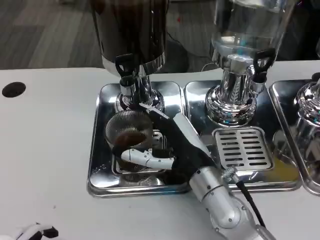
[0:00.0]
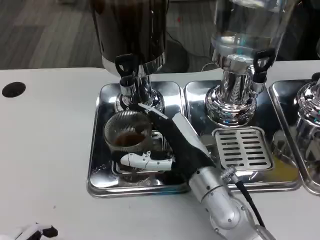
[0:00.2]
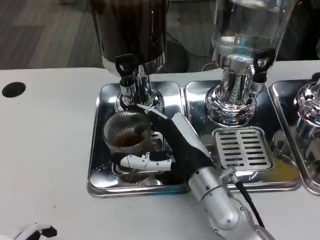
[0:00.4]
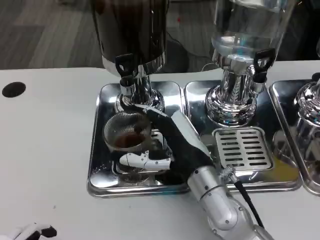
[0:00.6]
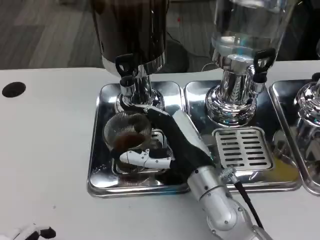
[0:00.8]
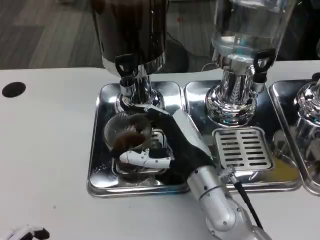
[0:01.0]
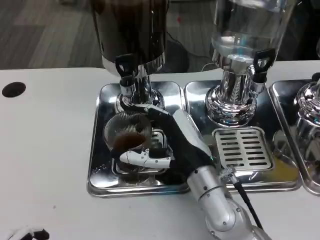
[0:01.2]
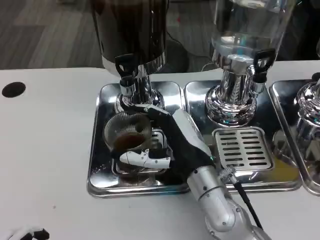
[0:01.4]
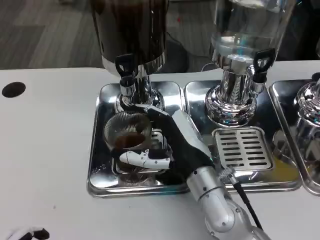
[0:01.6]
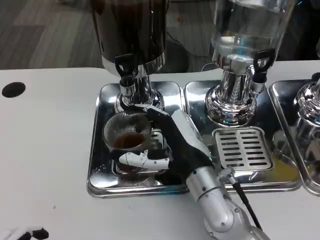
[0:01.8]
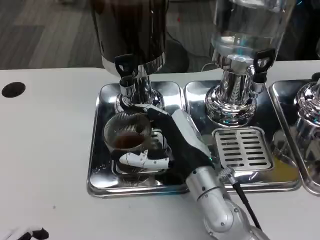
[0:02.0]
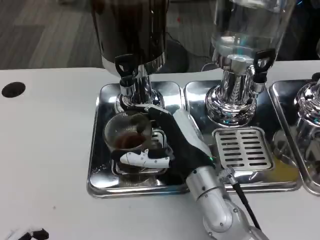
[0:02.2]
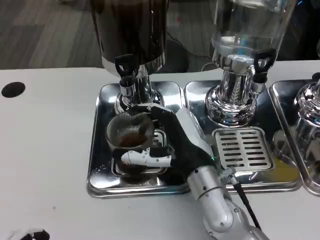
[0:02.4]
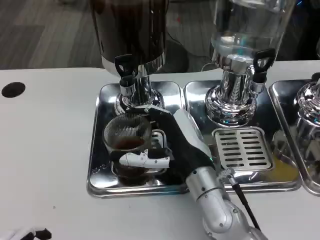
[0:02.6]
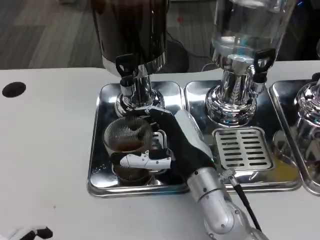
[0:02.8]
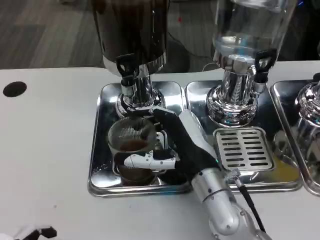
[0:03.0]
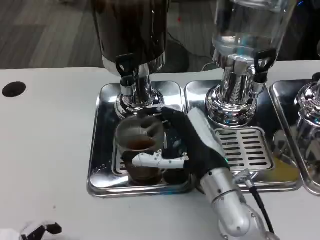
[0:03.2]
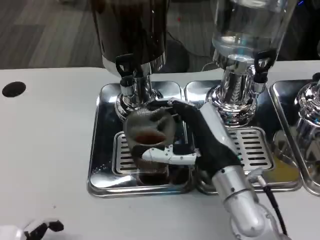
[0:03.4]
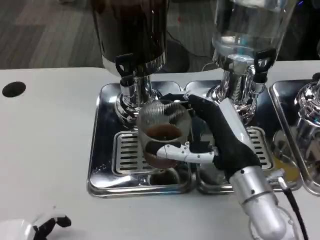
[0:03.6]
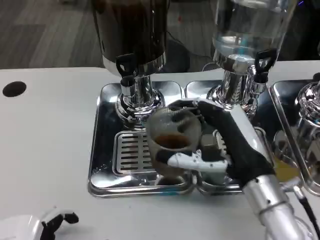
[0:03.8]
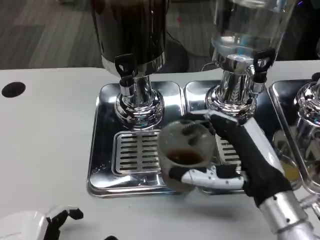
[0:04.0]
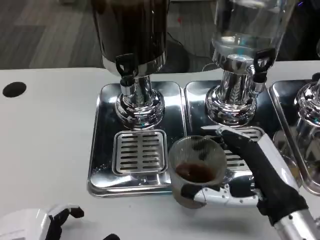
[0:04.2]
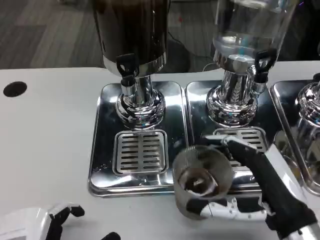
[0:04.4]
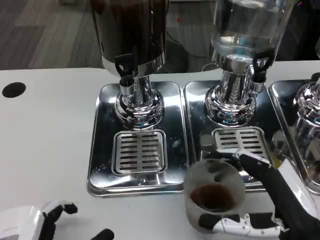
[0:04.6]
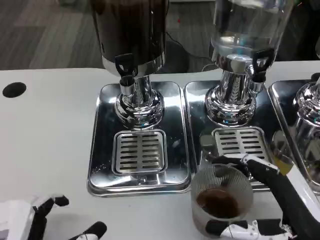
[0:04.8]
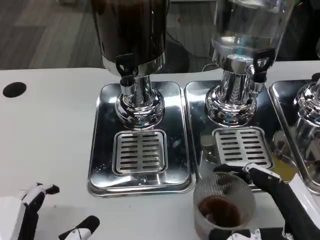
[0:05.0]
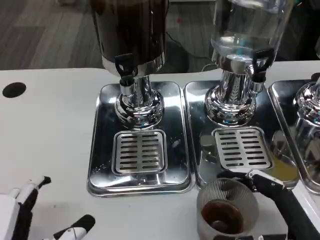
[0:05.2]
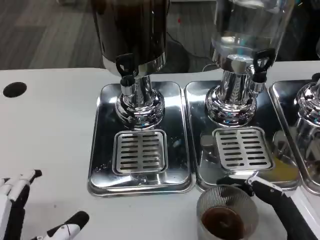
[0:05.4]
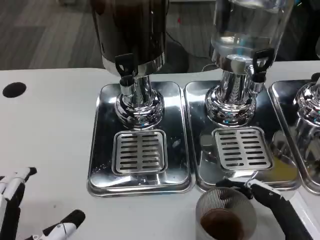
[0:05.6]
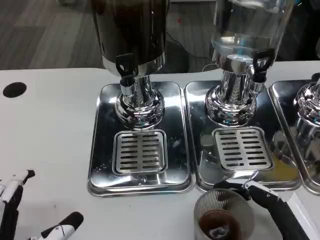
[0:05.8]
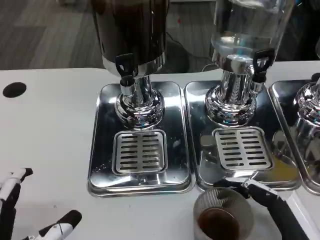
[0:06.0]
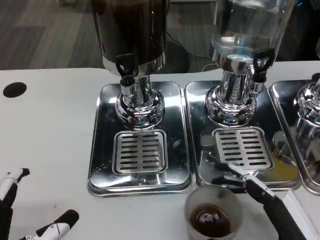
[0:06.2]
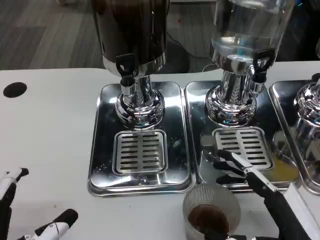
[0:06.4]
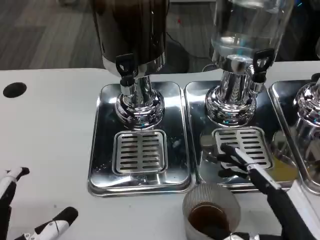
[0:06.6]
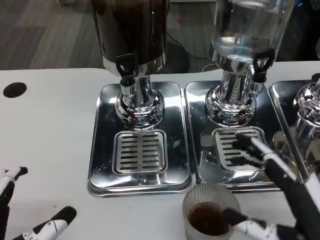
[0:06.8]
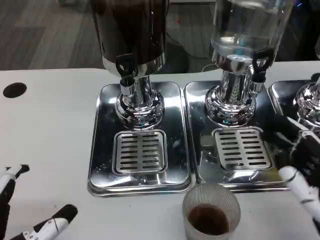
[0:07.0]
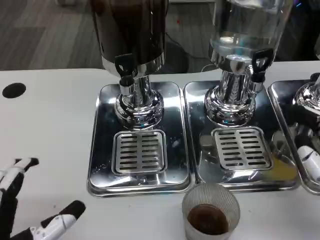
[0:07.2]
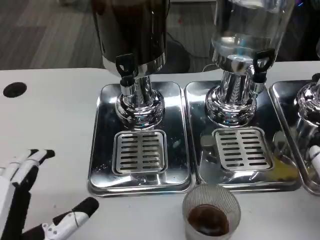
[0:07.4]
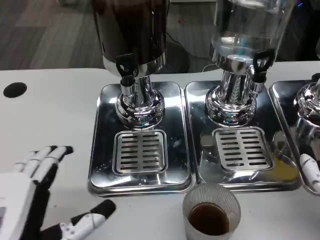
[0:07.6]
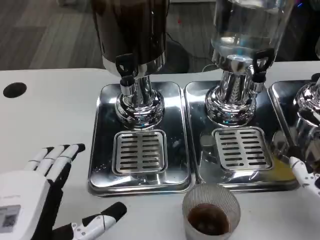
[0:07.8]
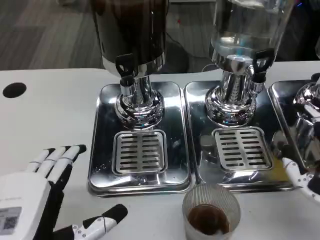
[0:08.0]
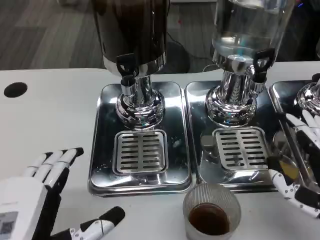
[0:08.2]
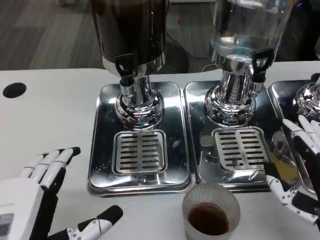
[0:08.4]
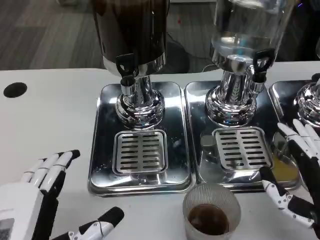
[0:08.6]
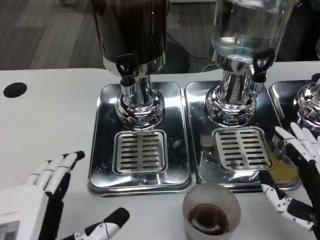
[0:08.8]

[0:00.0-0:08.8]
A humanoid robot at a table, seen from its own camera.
Task of the whole recording: Grasp the cup under the faucet to collect the drink, then remove the cup.
0:00.0 to 0:01.4: The hands stay close to where they were, moving slightly.
0:01.4 to 0:03.0: The two hands keep their place.
0:03.0 to 0:04.4: The right hand is displaced to the right and backward by some 15 cm.
0:04.4 to 0:05.8: The right hand moves some 5 cm.
0:05.8 to 0:07.4: The right hand travels upward by roughly 5 cm.

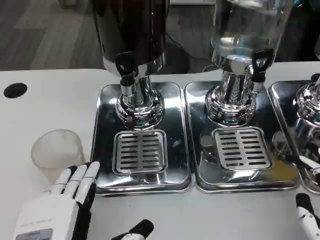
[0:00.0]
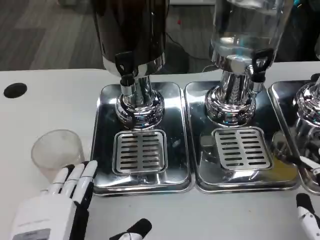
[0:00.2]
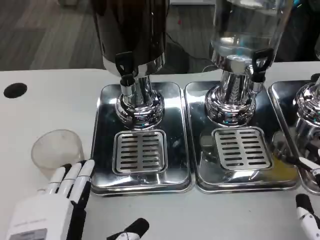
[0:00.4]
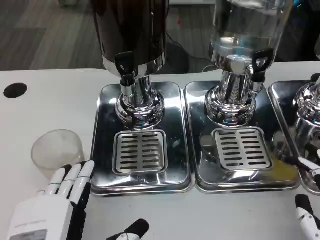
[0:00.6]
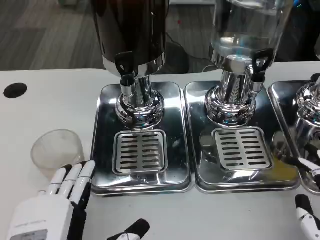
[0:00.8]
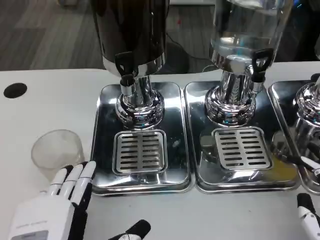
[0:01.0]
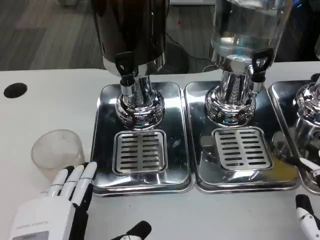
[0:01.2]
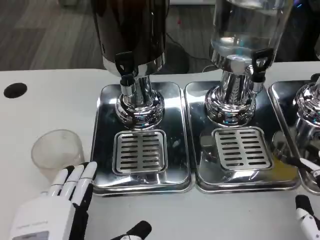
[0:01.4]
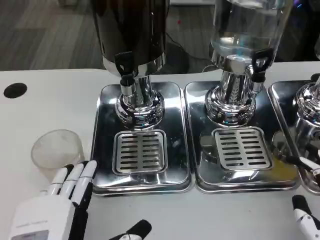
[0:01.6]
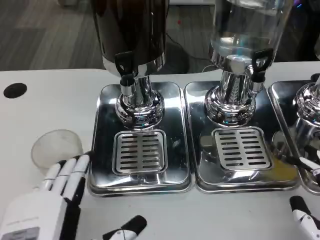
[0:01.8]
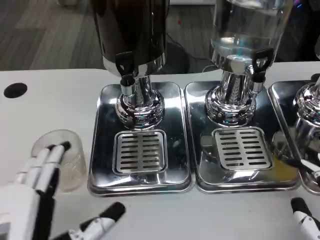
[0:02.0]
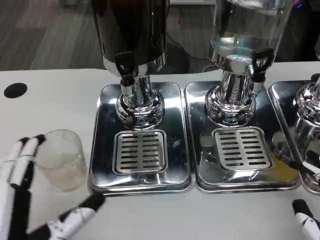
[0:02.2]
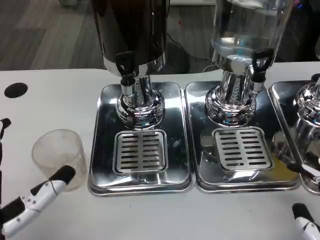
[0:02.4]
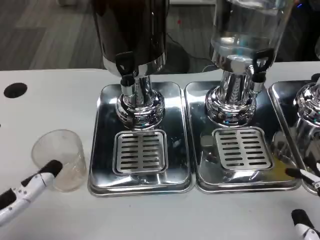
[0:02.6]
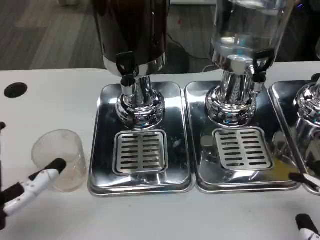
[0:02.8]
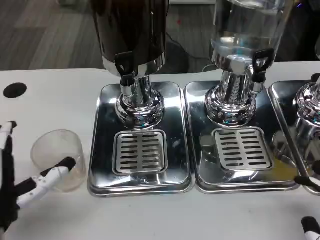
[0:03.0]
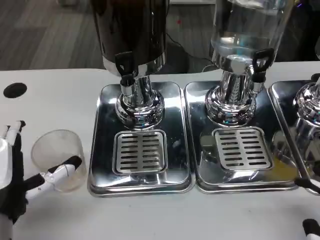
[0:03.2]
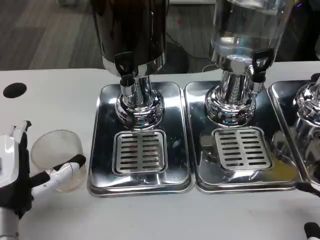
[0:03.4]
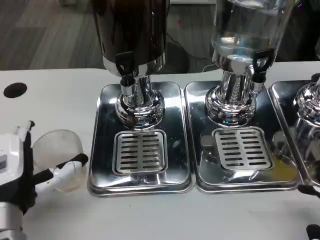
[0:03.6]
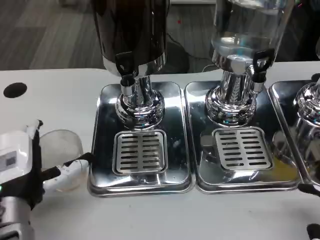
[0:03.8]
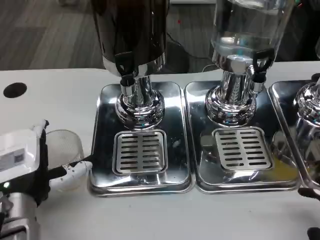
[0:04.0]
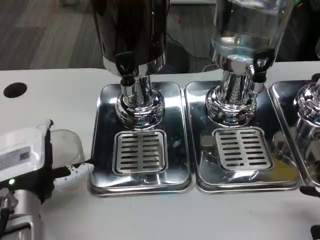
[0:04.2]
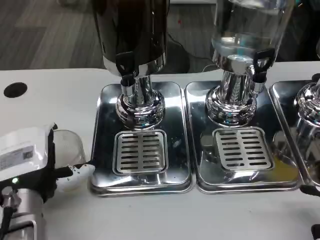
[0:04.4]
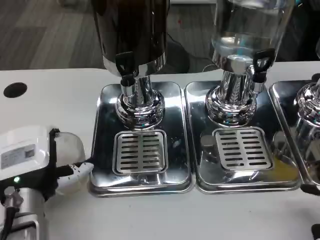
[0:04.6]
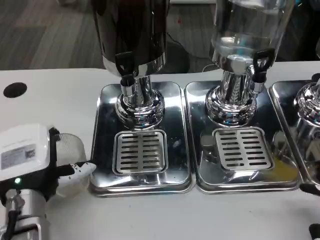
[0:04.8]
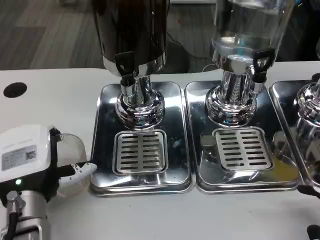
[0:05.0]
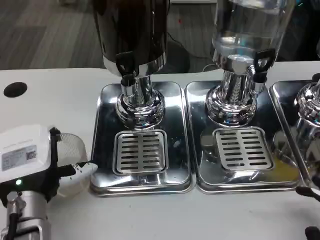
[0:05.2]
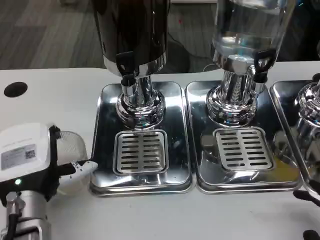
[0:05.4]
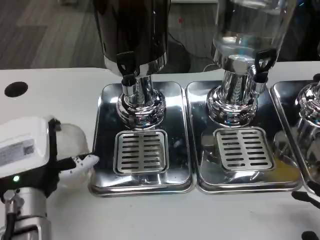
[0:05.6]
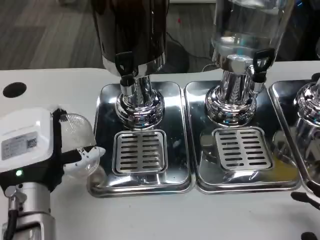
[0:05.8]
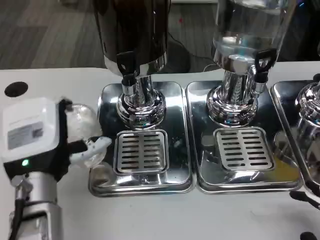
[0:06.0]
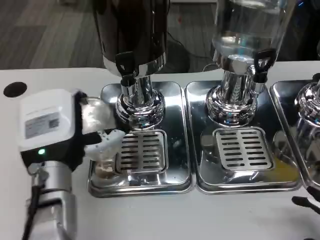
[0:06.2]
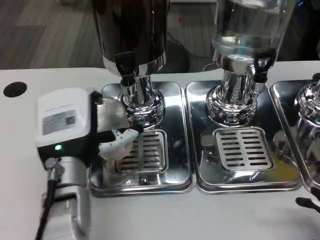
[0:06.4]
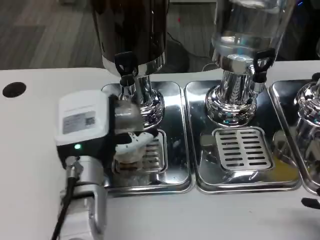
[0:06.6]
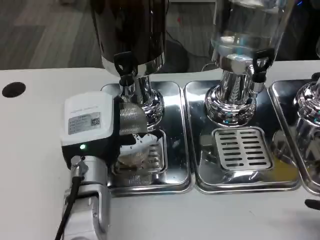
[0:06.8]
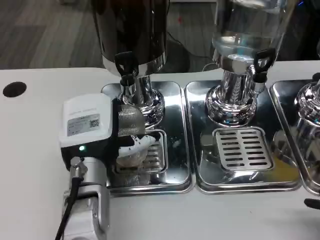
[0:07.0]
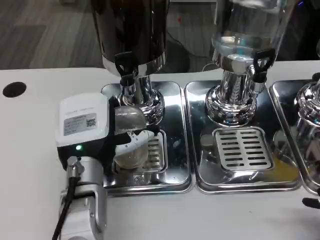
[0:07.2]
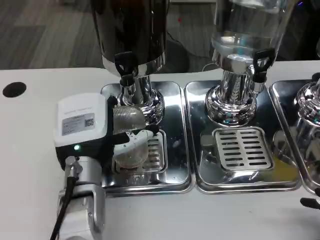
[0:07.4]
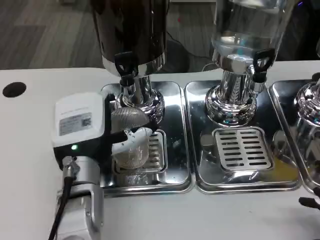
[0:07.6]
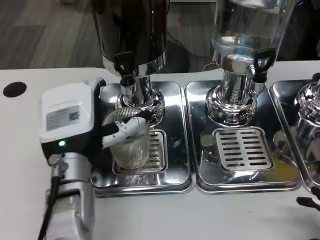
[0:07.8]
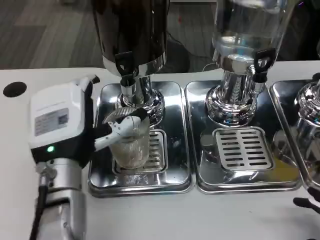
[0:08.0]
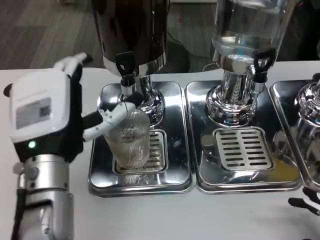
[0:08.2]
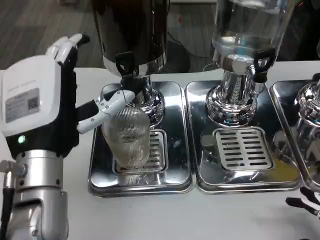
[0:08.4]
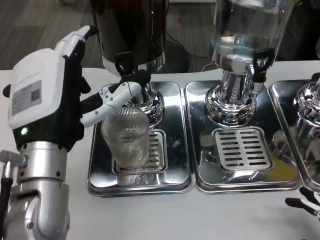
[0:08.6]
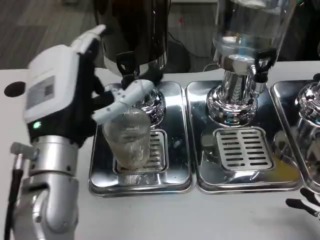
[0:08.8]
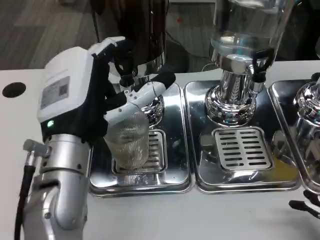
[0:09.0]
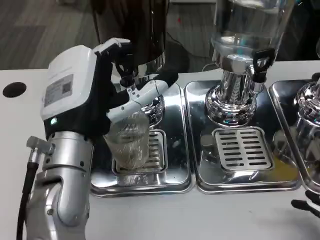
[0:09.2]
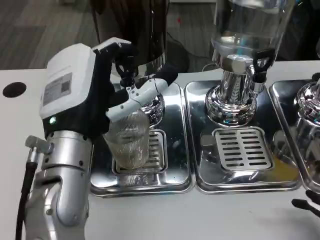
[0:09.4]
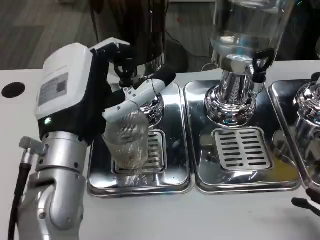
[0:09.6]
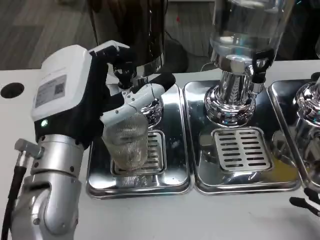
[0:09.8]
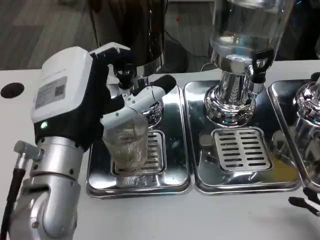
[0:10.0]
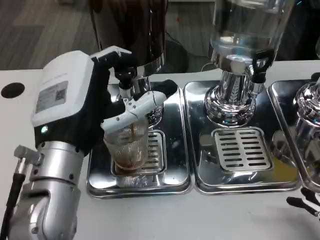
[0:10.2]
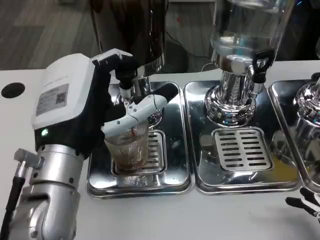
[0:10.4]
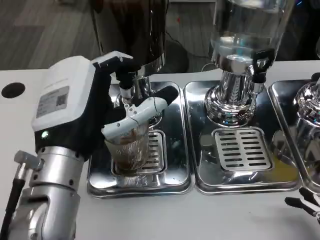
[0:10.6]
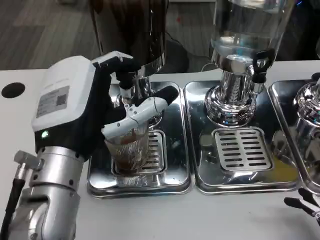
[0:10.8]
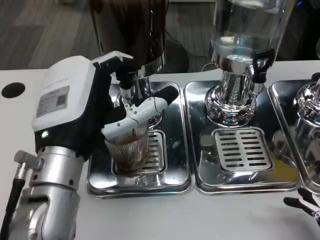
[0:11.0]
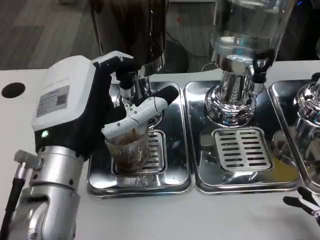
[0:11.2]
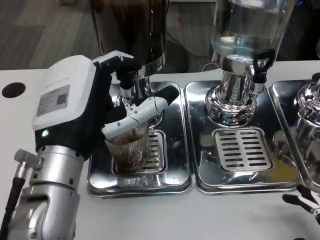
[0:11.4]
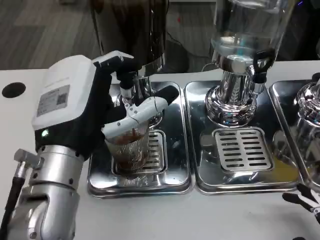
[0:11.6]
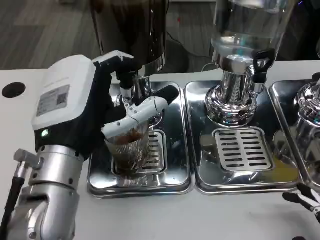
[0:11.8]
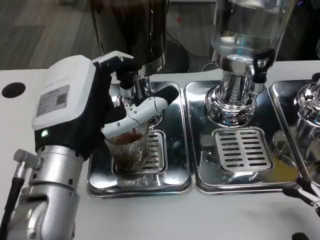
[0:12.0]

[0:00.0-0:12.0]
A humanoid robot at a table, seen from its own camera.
Task of the whole recording: Grasp the cup under the faucet to collect the drink, then remove the cup.
0:00.0 to 0:01.6: Neither hand changes place.
0:01.6 to 0:03.0: The left hand moves forward and to the left, some 10 cm.
0:03.0 to 0:04.4: The left hand heads forward, covering roughly 5 cm.
0:04.4 to 0:06.0: The hands move only a little.
0:06.0 to 0:07.6: The left hand changes place by about 5 cm.
0:07.6 to 0:09.0: The left hand is displaced upward by roughly 5 cm.
0:10.4 to 0:12.0: The hands make only small movements.

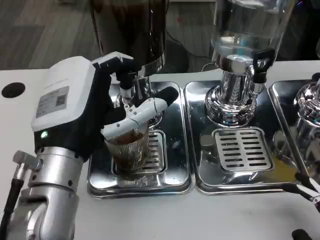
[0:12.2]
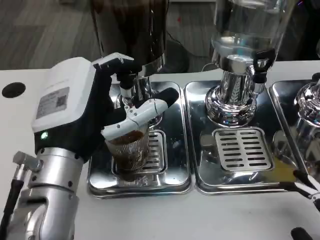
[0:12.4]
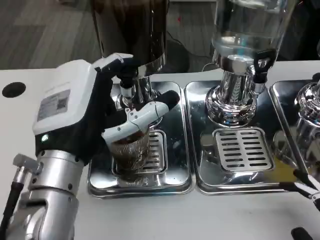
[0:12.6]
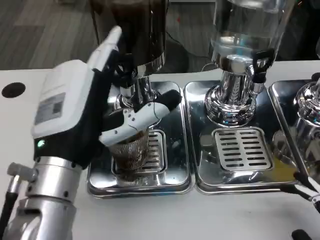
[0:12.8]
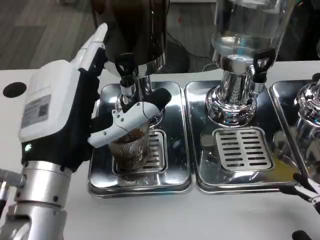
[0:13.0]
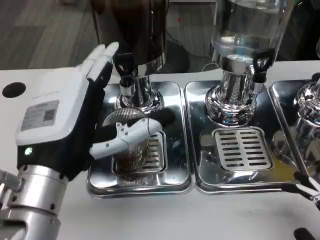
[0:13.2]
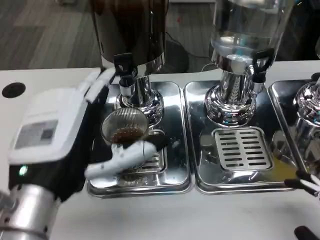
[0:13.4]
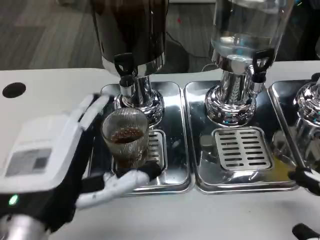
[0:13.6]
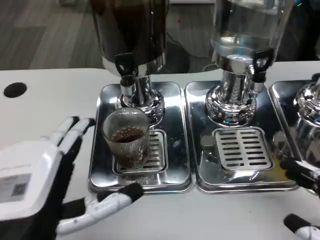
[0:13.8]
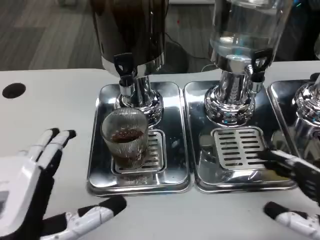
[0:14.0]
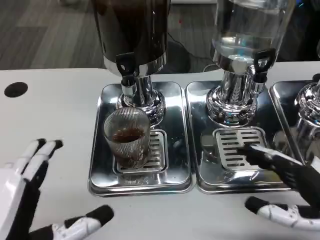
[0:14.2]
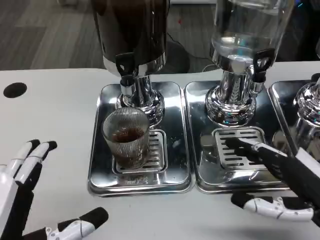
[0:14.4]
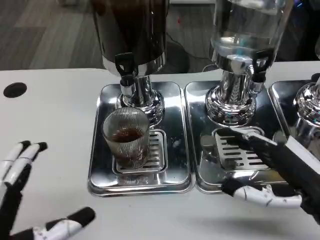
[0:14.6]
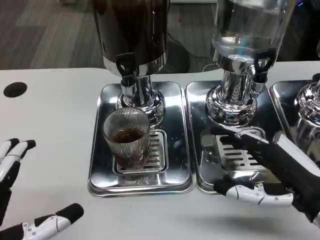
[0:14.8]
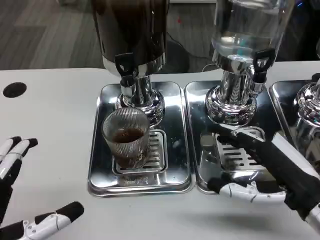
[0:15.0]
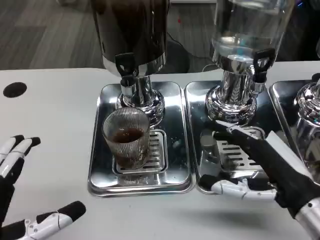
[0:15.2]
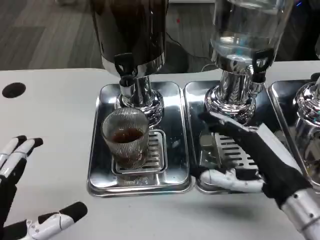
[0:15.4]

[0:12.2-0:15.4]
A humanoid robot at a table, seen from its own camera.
Task of the whole recording: Grasp the cup under the faucet to collect the drink, then remove the cup.
0:12.2 to 0:13.8: The left hand shifts approximately 10 cm backward.
0:13.8 to 0:15.4: The right hand goes approximately 15 cm to the left and forward, while the left hand shifts about 5 cm to the left.
